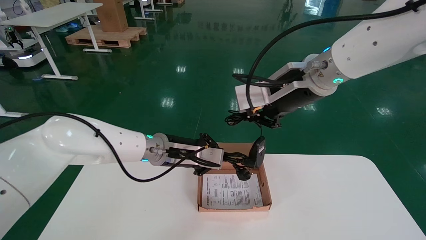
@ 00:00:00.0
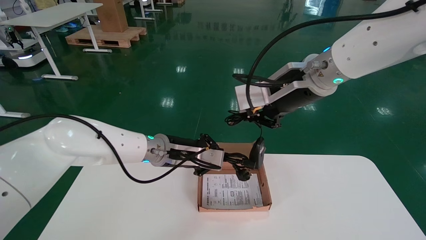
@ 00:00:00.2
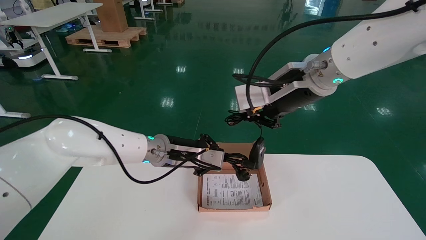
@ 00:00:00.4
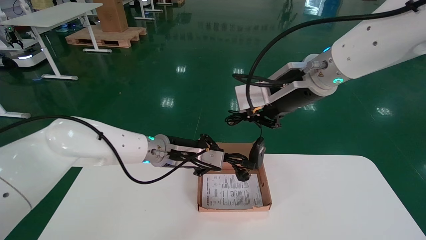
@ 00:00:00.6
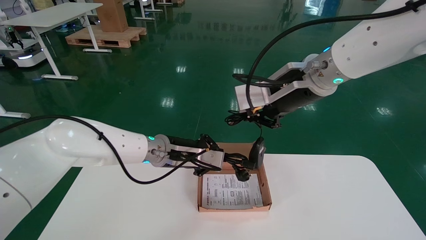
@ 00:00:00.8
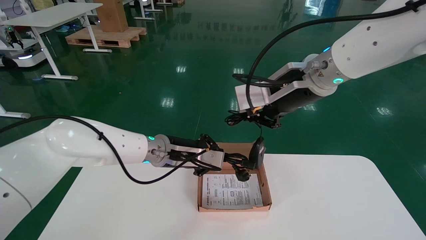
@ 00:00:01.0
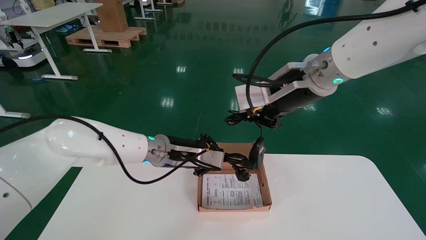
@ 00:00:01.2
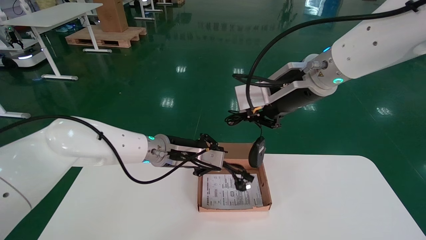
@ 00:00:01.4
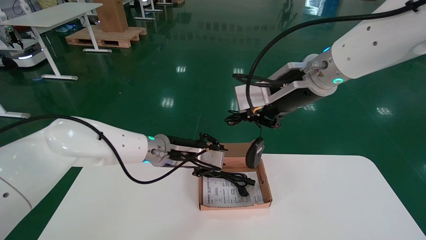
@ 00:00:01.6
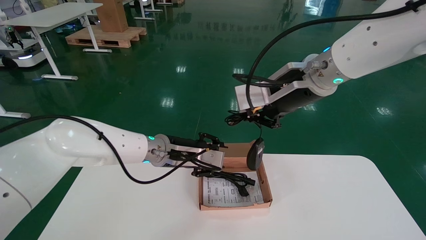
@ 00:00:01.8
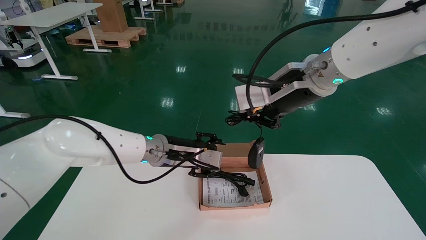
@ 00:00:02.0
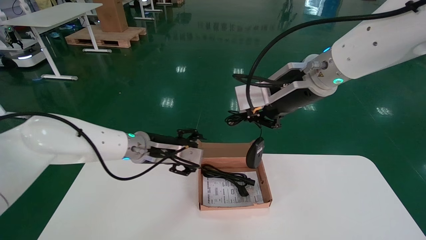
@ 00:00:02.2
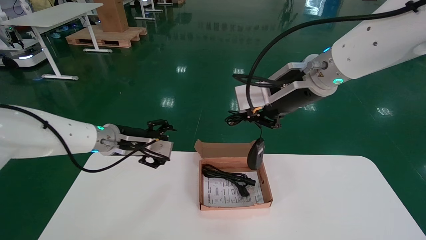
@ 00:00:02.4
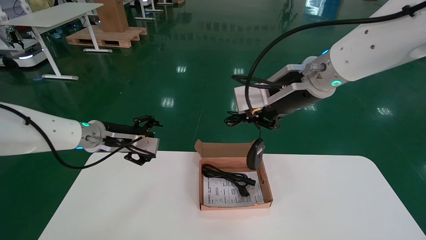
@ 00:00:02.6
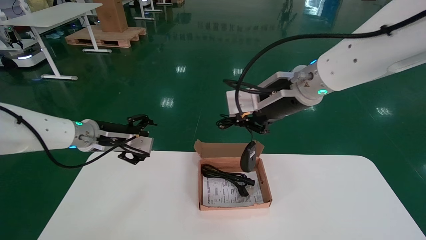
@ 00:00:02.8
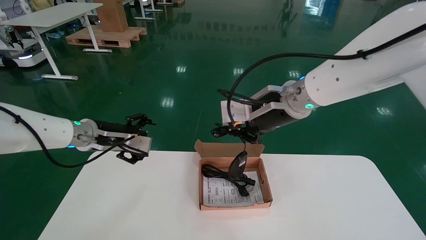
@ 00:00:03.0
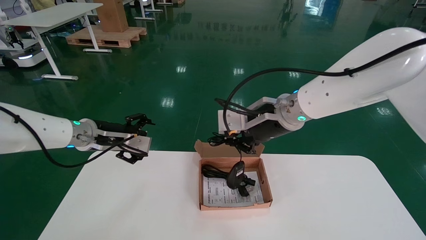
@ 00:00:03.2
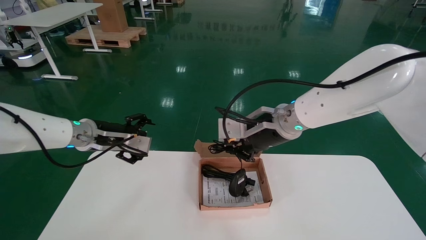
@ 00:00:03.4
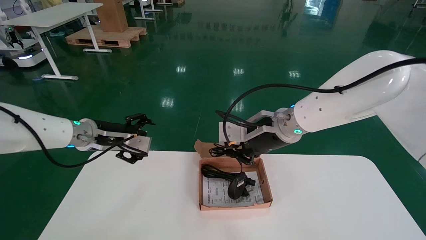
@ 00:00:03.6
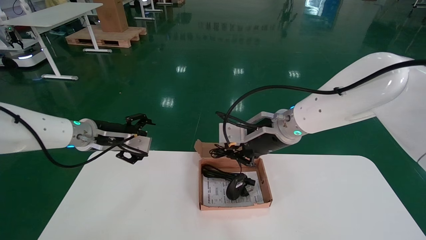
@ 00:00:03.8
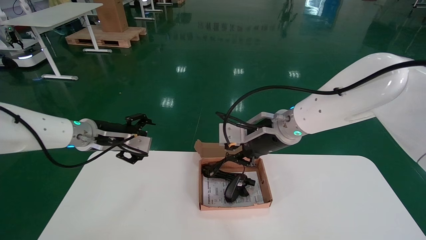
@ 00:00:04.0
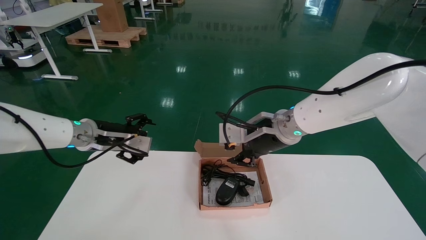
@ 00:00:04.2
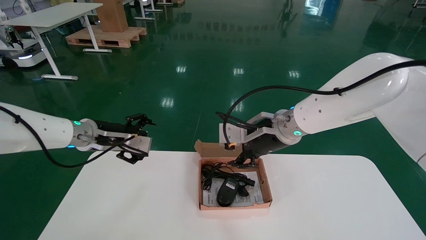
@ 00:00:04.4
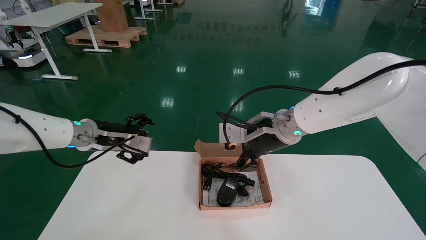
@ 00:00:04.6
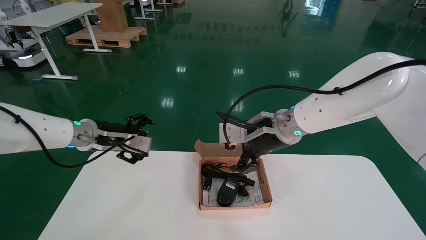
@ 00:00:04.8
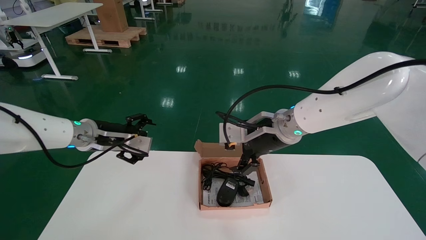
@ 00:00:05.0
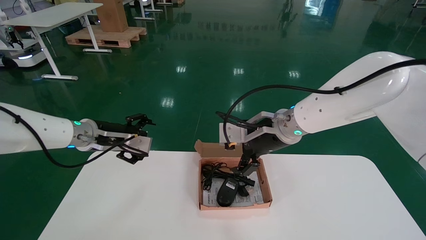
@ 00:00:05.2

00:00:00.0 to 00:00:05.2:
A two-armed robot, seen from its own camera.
Step, 00:00:00.0 to 00:00:04.8: Place the mouse and power cord into the box.
00:00:00.0 to 00:00:01.8: Both grippers stay about where they are.
00:00:01.8 to 00:00:03.4: The right gripper is displaced downward by some 5 cm. Meanwhile the left gripper shifts approximately 15 cm to the left, and opens its fingers.
00:00:03.4 to 00:00:05.2: The right gripper opens its fingers.
